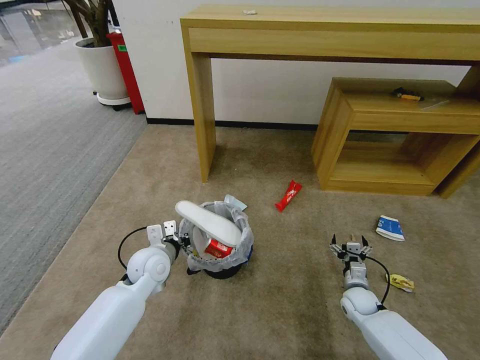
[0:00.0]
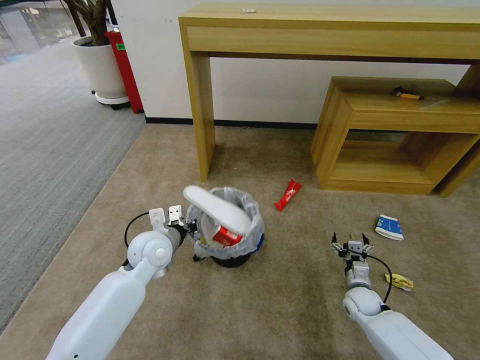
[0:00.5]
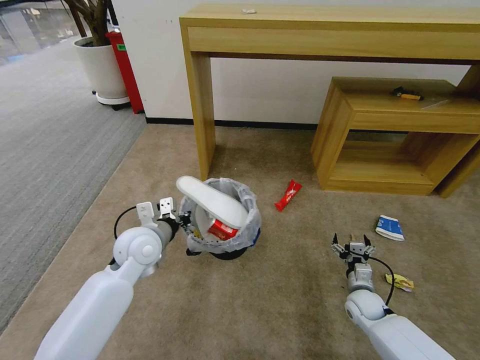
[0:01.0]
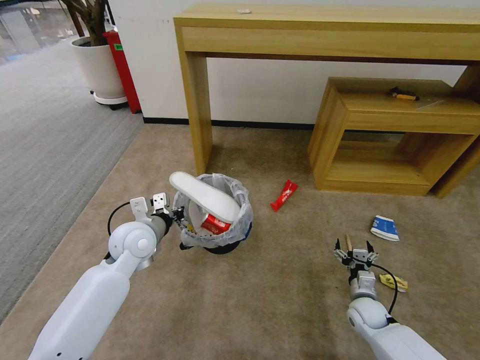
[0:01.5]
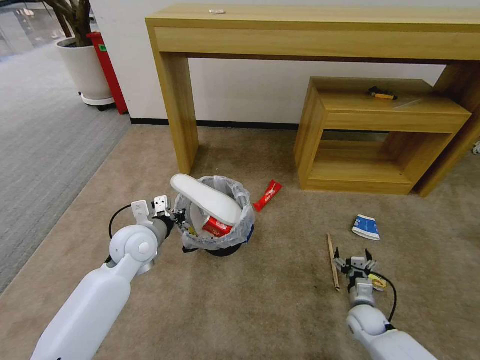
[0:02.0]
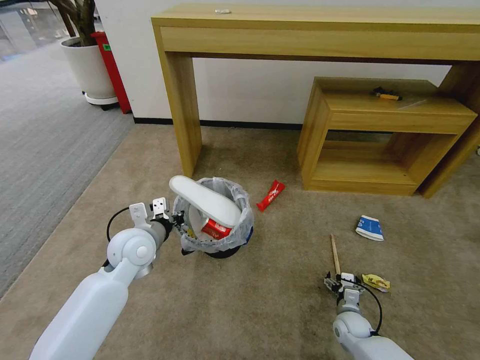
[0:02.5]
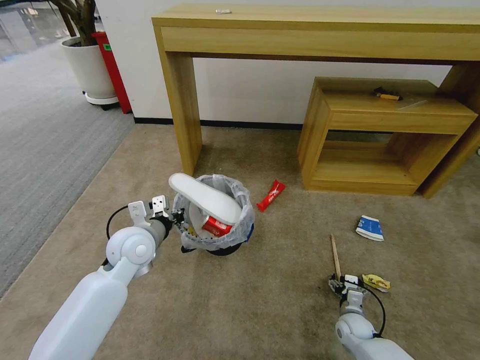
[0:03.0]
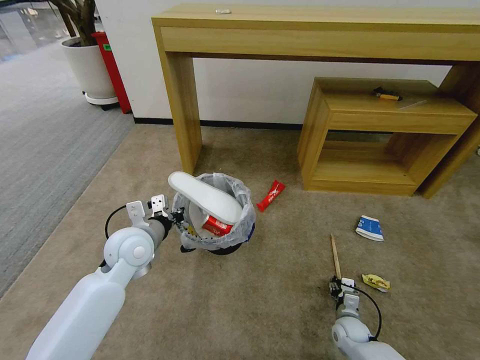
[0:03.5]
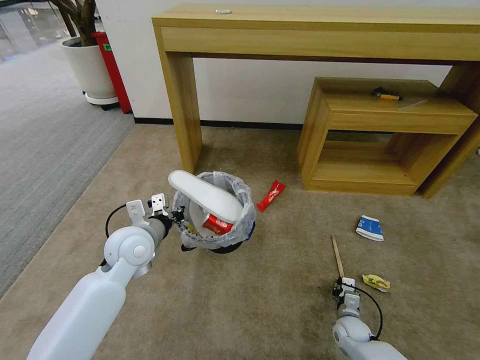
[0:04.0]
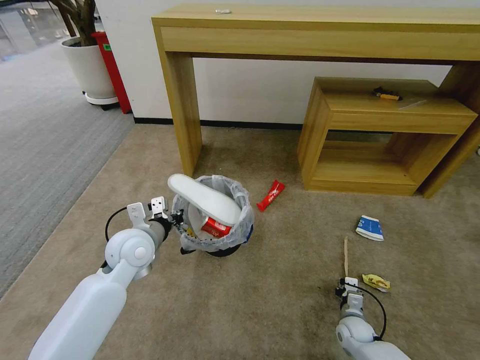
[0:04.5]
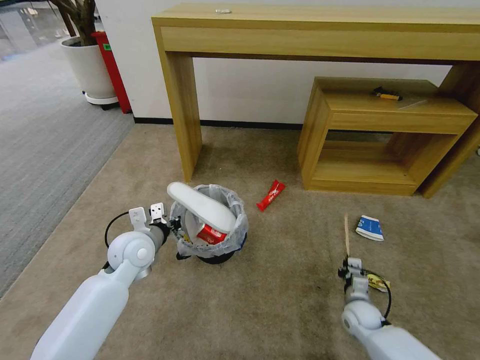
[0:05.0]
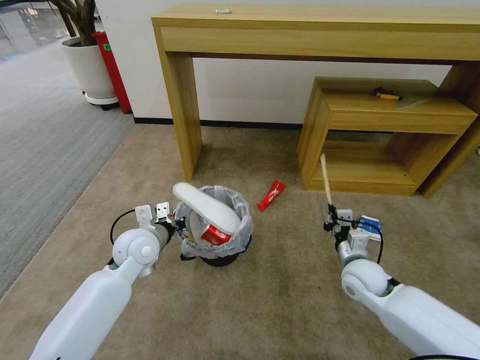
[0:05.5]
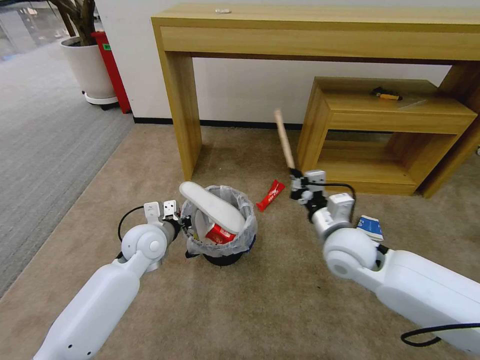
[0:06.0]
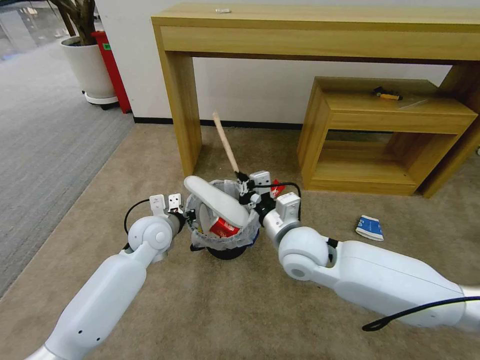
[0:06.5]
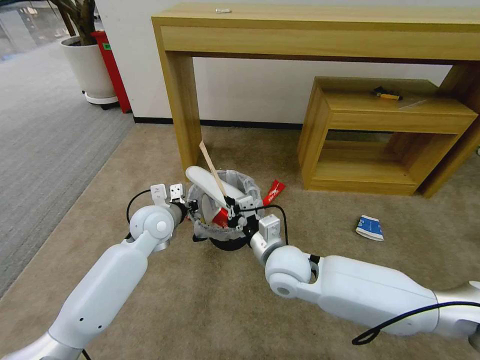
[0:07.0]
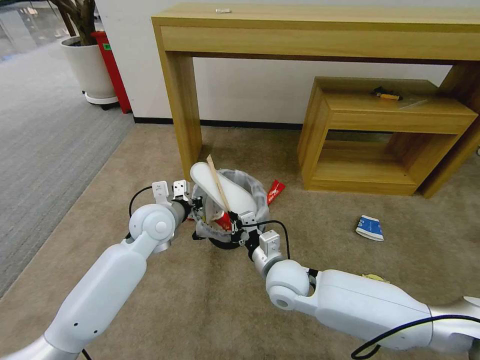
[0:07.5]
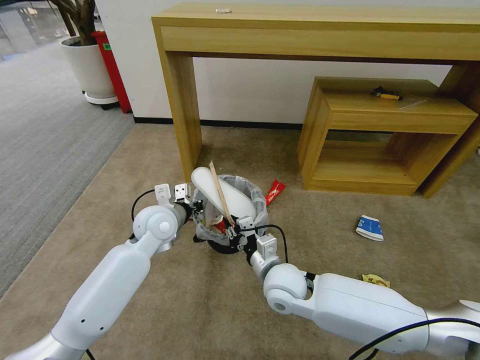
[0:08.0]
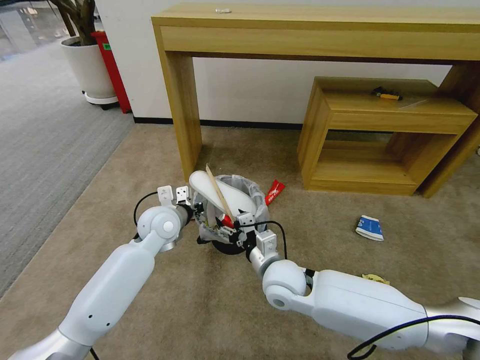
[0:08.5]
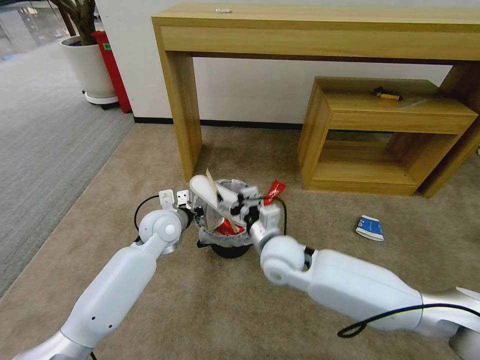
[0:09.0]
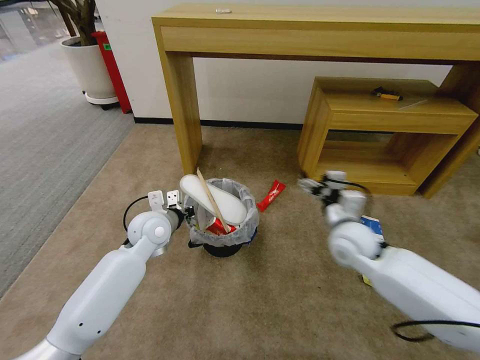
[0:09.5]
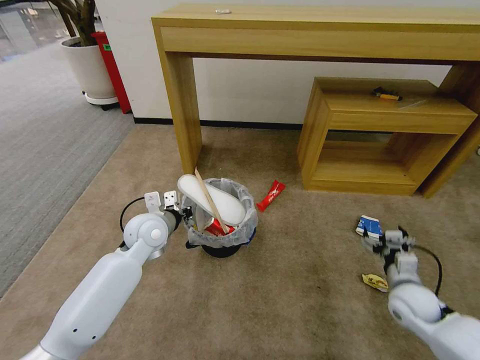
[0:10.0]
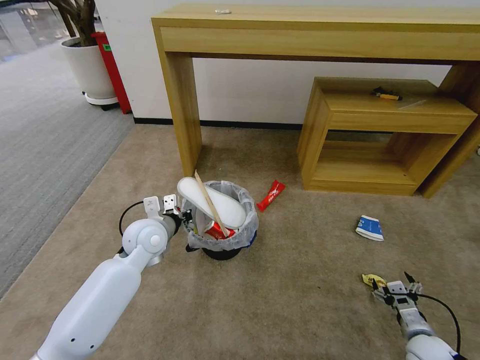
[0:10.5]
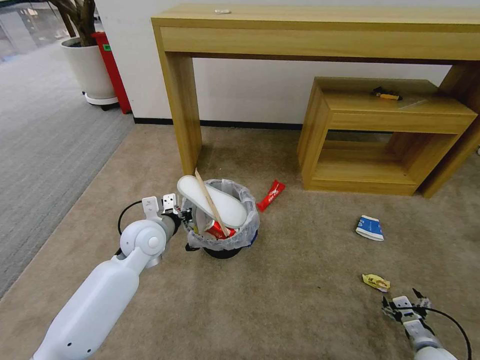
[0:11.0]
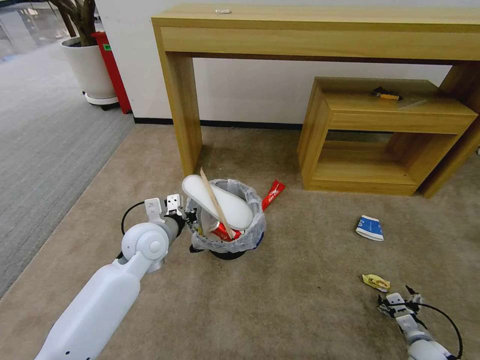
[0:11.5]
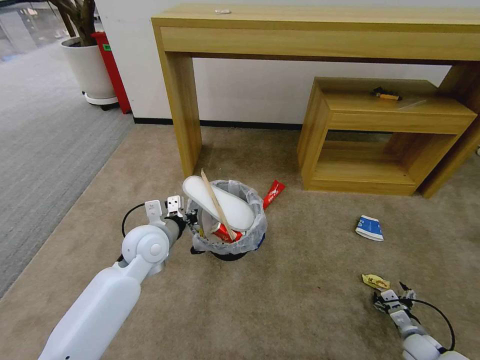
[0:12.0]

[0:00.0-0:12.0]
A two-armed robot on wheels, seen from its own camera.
Task of the whole recording: Pick up the trash bin and place the garbage on the floor into it.
0:00.0 to 0:02.0: The left gripper heads upward, covering some 10 cm.
0:02.0 to 0:04.0: The right gripper heads downward, covering approximately 5 cm, and closes.
0:04.0 to 0:06.0: The right gripper goes approximately 35 cm upward.
0:06.0 to 0:08.0: The right gripper goes roughly 15 cm to the left and downward. Meanwhile the left gripper shifts by about 5 cm.
0:08.0 to 0:10.0: The right gripper shifts approximately 30 cm to the right, and opens its fingers.
0:10.0 to 0:12.0: The right gripper goes about 20 cm downward and to the right.

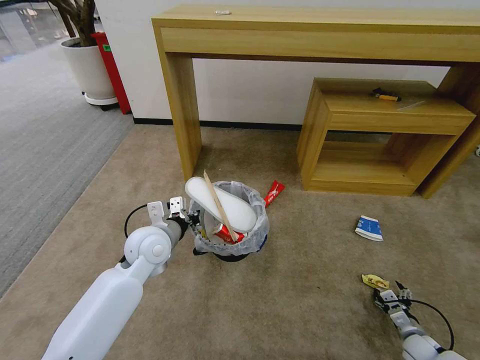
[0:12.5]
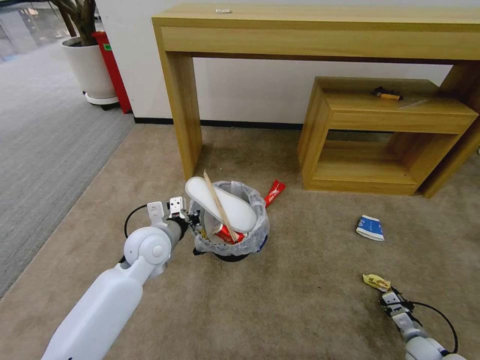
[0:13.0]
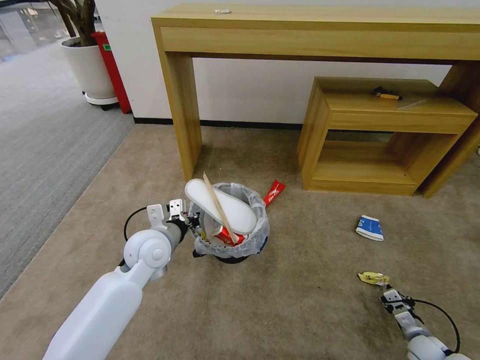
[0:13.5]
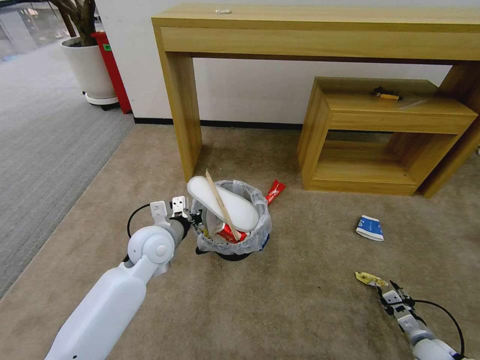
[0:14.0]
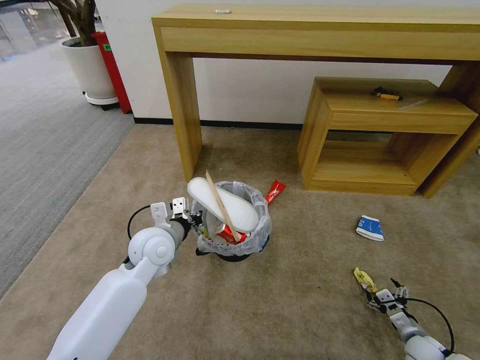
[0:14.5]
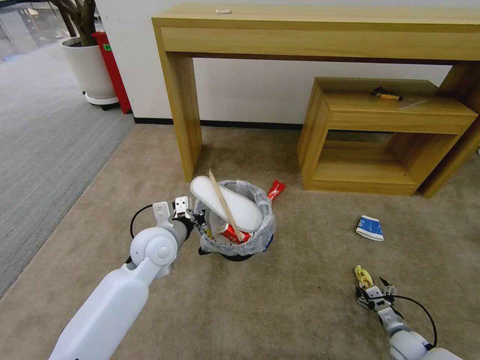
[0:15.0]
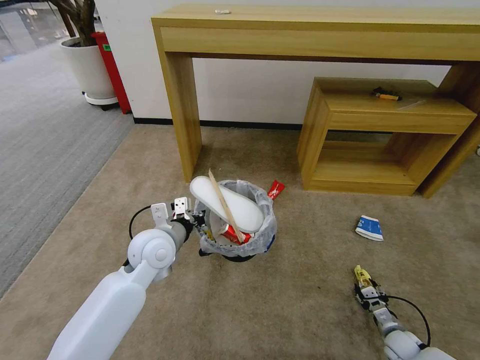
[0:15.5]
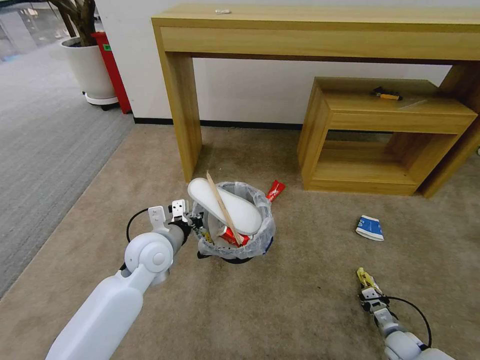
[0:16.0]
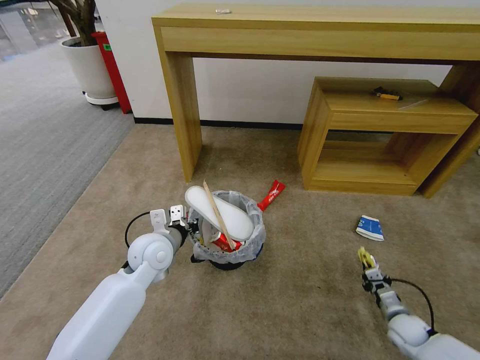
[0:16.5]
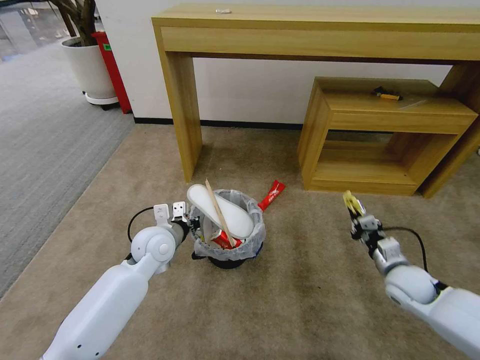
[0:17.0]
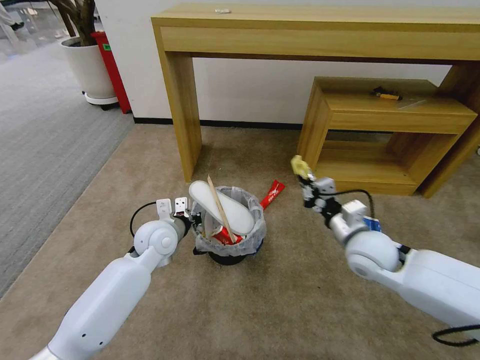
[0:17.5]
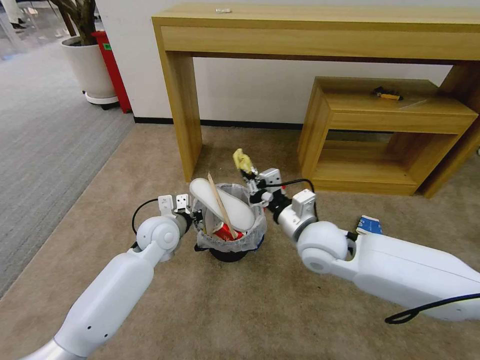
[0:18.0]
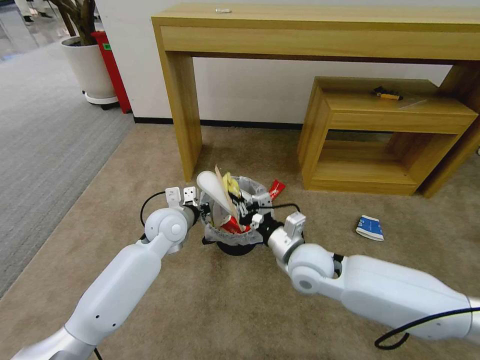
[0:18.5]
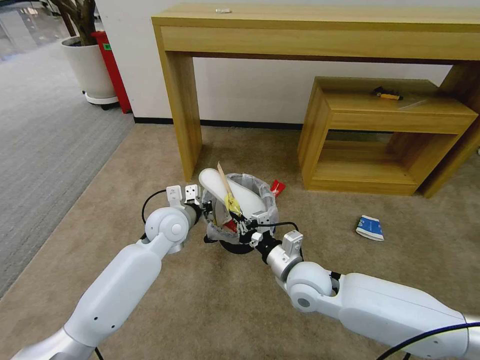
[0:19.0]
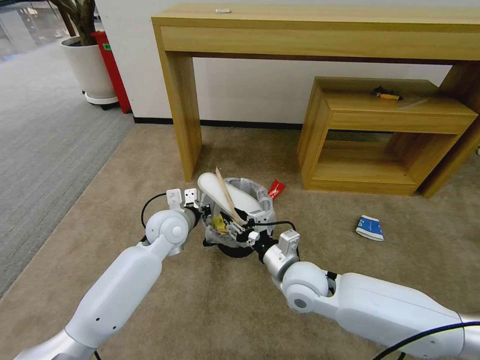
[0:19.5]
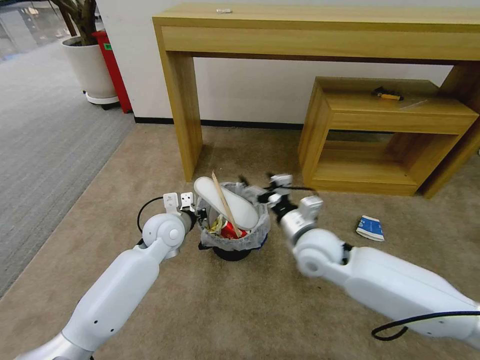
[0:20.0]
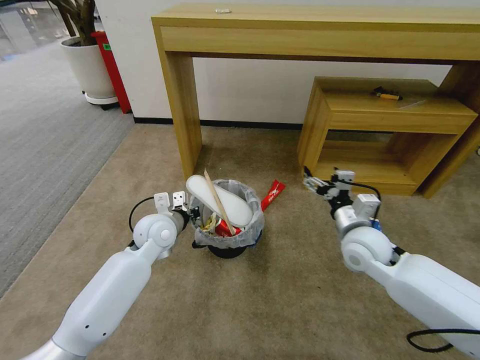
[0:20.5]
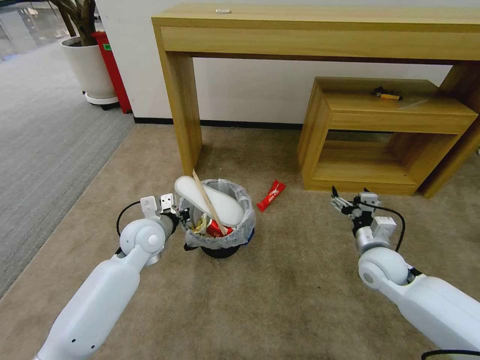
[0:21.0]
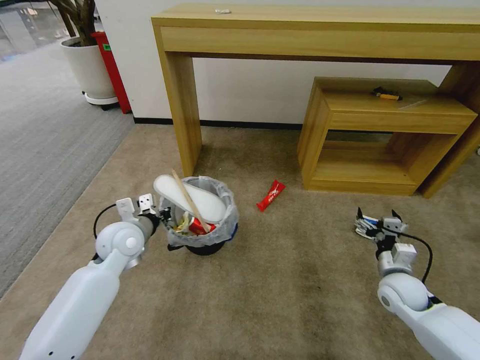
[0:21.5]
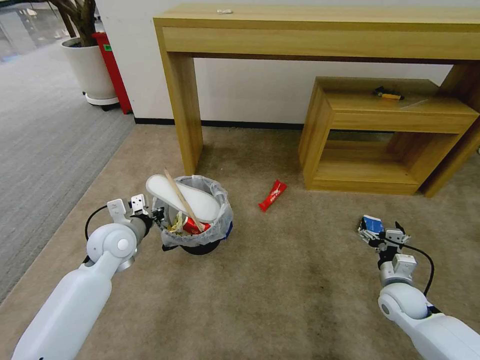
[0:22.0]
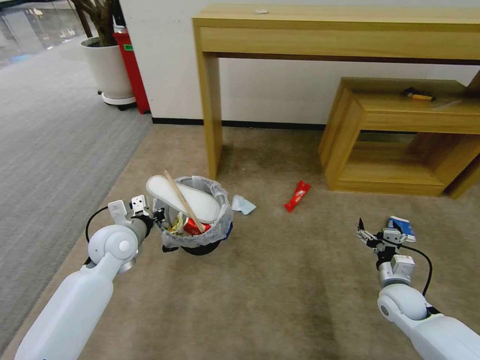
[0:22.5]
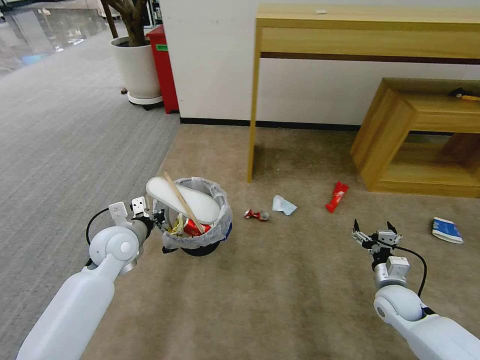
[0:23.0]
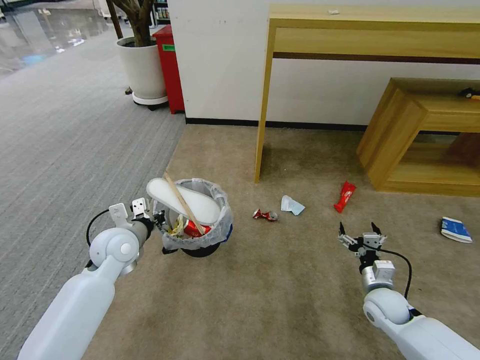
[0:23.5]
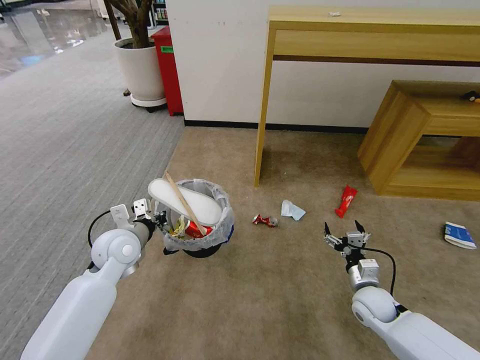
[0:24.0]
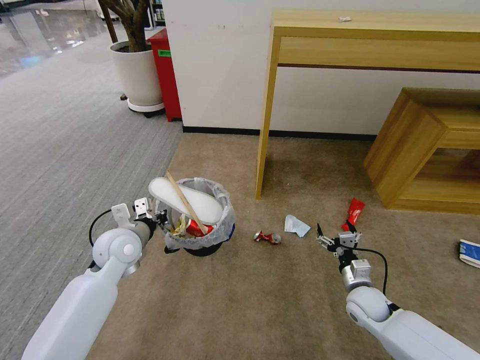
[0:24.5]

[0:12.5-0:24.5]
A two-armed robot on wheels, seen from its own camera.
Task of the whole recording: Pick up the trash bin and place the garbage on the floor into it.
0:12.5 to 0:14.5: The right gripper closes, then opens again.
0:14.5 to 0:16.5: The right gripper moves some 5 cm, and closes.
0:16.5 to 0:18.5: The left gripper heads forward, covering some 5 cm, while the right gripper travels to the left and upward by roughly 40 cm.
0:18.5 to 0:20.5: The right gripper travels to the right by roughly 15 cm, and opens up.
0:20.5 to 0:22.5: The left gripper travels to the left by about 10 cm. The right gripper goes approximately 20 cm downward and to the right.
0:22.5 to 0:24.5: The right gripper shifts approximately 5 cm to the left.

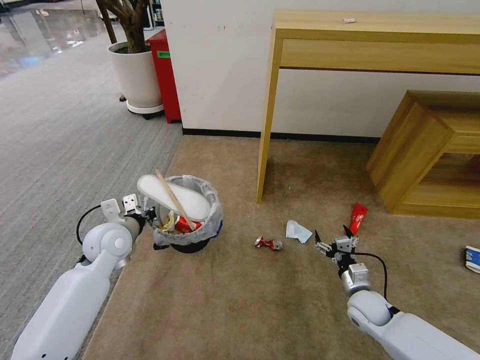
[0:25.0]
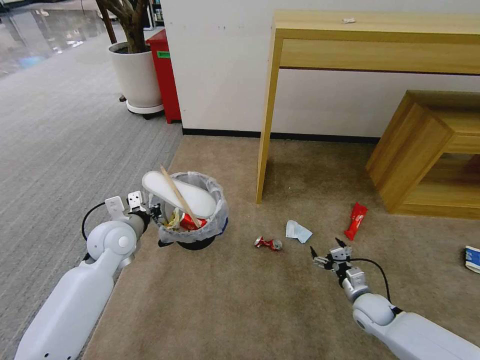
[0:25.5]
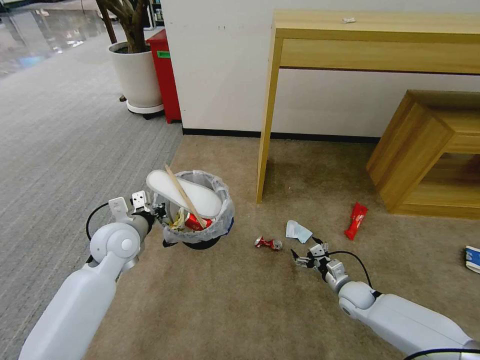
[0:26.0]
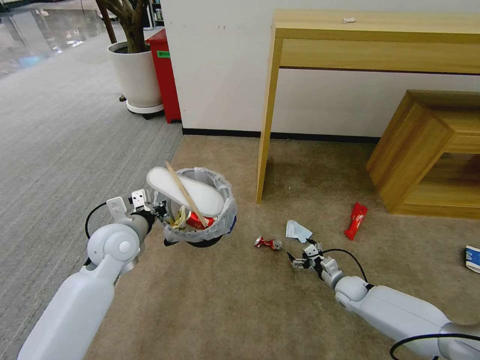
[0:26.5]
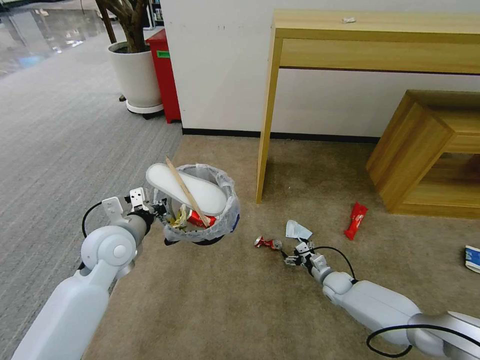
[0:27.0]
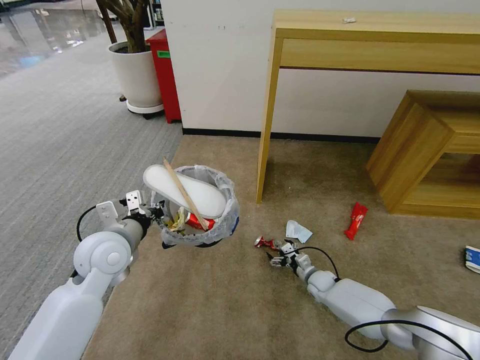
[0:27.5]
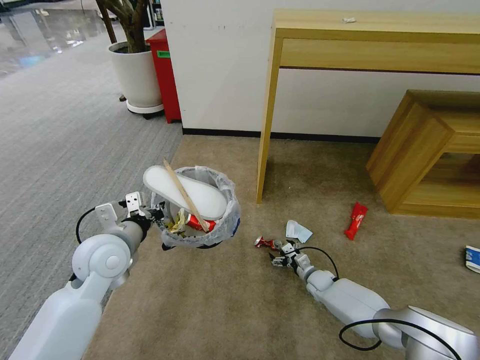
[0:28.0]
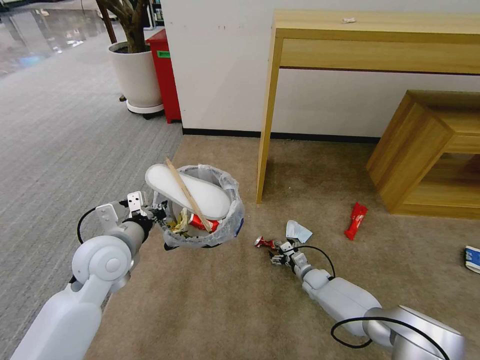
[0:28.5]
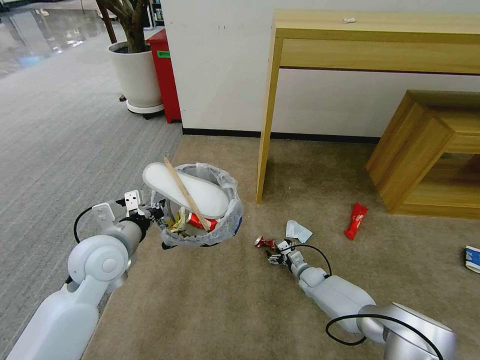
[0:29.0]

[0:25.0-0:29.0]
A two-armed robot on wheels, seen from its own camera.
Task of the whole recording: Pick up the trash bin and place the garbage on the floor into it.
0:25.0 to 0:27.0: The right gripper goes about 10 cm forward and downward; the left gripper ends up some 5 cm from where it was.
0:27.0 to 0:29.0: The right gripper heads to the left, covering approximately 5 cm.
